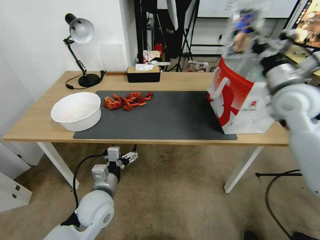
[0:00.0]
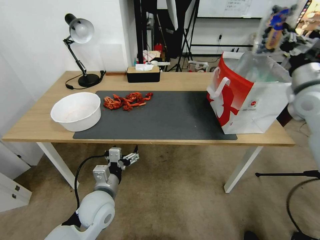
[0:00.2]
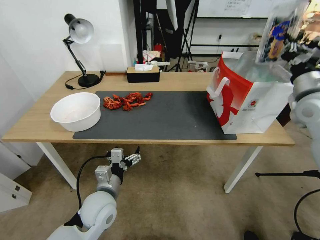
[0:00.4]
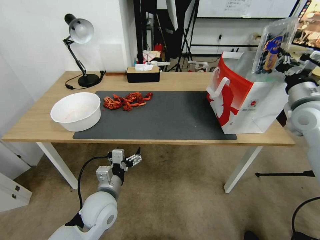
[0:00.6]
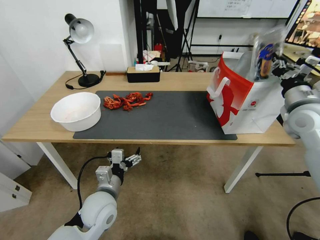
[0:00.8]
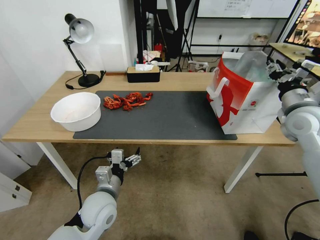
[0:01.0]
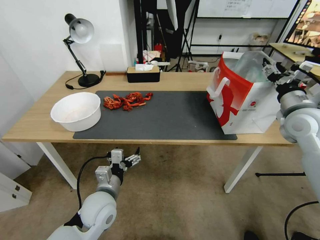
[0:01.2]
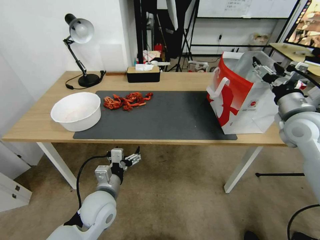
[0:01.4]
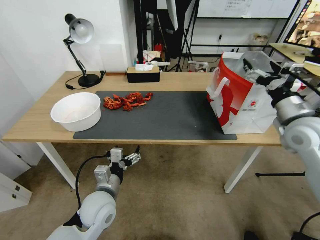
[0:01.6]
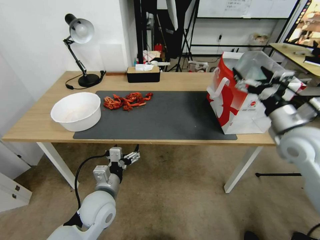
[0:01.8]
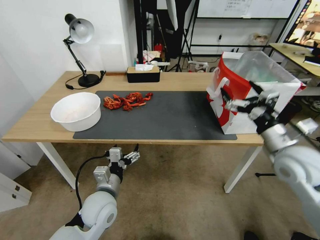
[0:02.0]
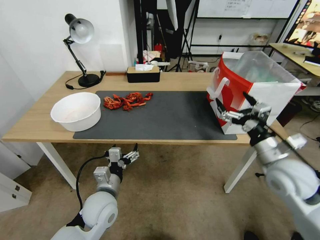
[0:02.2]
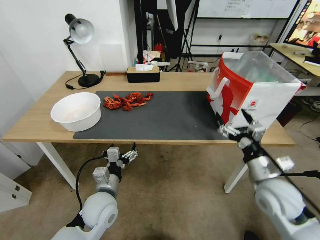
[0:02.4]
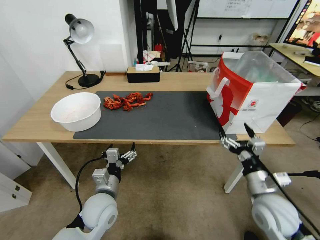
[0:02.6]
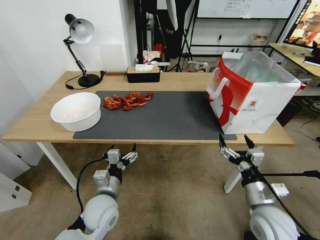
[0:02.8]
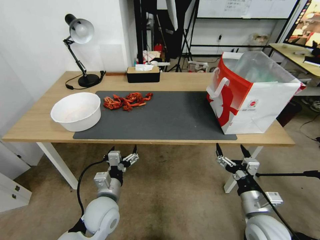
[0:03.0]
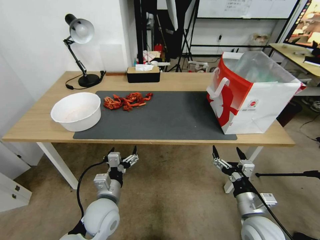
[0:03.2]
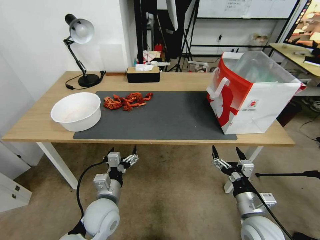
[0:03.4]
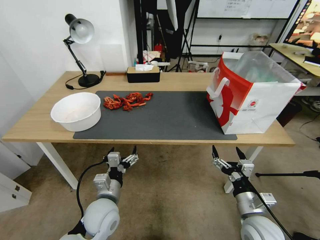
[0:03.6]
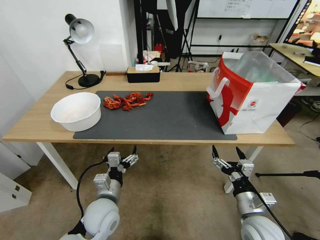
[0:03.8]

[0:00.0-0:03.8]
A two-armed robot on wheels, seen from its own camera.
Task of the whole recording: Close the takeout container lid, then place the container into the takeout bag.
0:00.0 to 0:01.2: The right gripper shifts some 10 cm downward and to the right, and opens its fingers.
0:01.2 to 0:02.6: The right gripper moves downward, backward and to the left, approximately 25 cm, and opens up.
0:02.6 to 0:03.8: The right gripper goes approximately 5 cm downward.

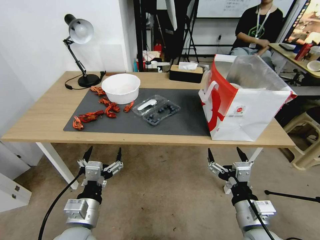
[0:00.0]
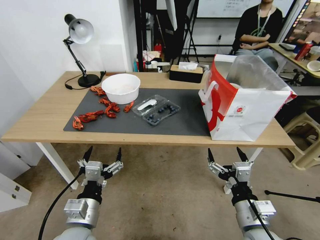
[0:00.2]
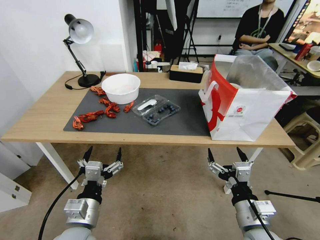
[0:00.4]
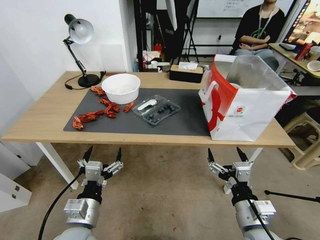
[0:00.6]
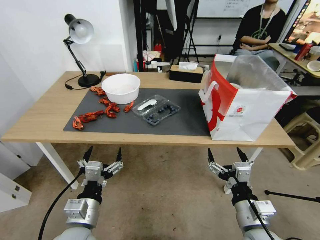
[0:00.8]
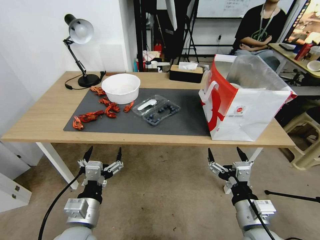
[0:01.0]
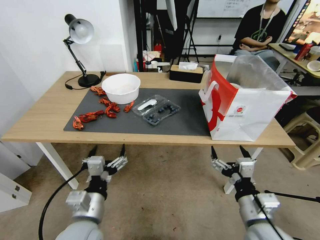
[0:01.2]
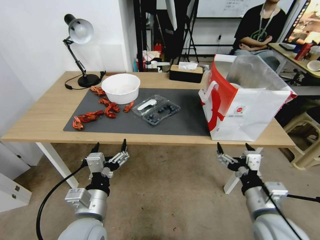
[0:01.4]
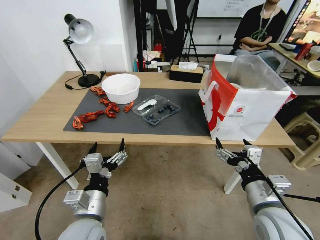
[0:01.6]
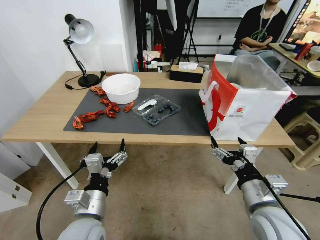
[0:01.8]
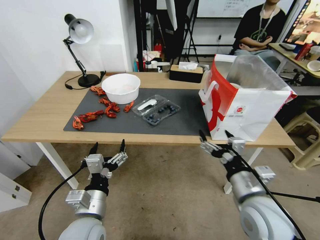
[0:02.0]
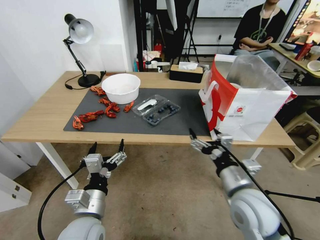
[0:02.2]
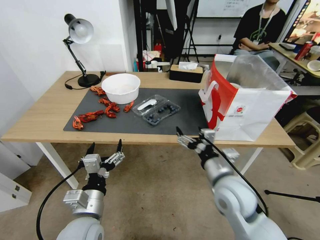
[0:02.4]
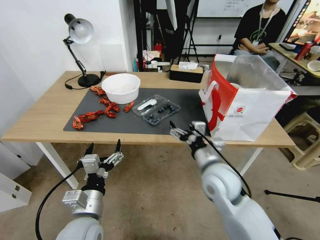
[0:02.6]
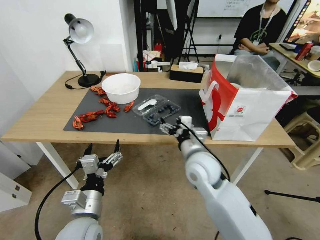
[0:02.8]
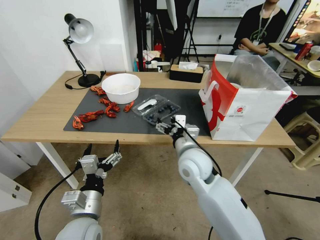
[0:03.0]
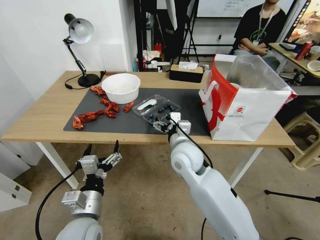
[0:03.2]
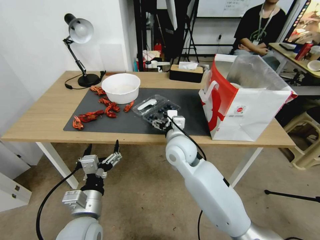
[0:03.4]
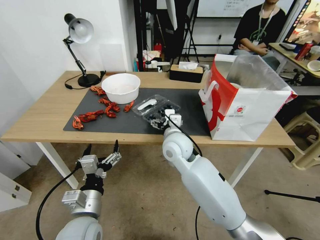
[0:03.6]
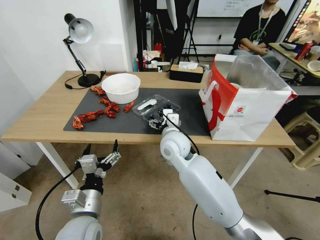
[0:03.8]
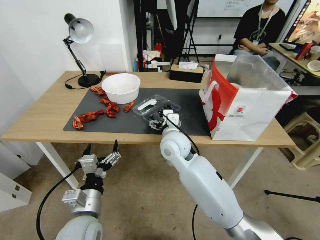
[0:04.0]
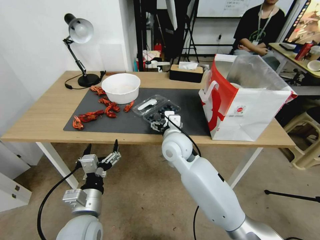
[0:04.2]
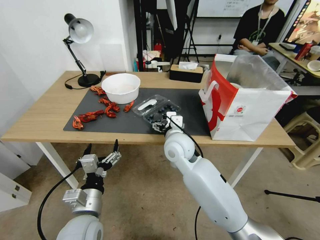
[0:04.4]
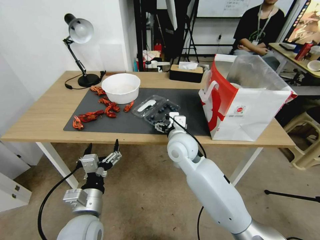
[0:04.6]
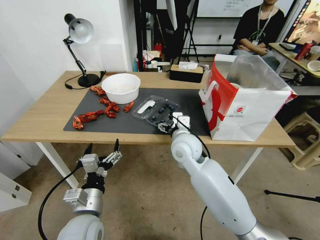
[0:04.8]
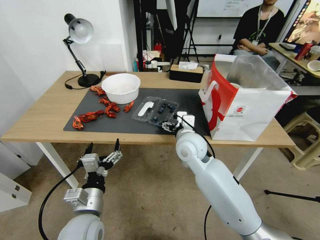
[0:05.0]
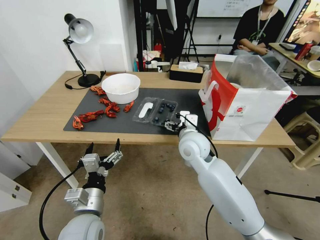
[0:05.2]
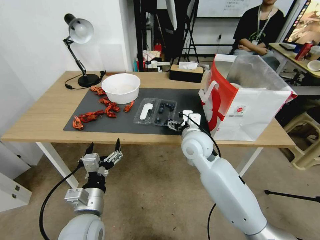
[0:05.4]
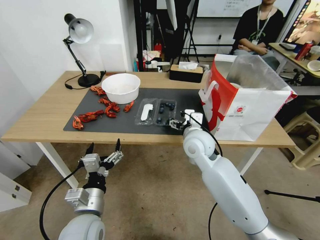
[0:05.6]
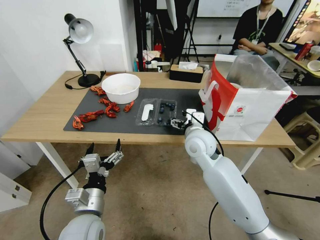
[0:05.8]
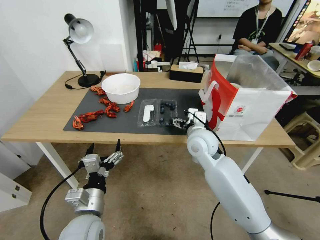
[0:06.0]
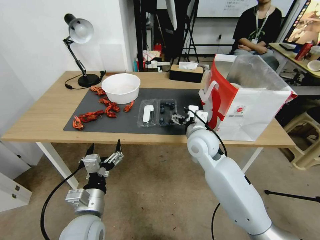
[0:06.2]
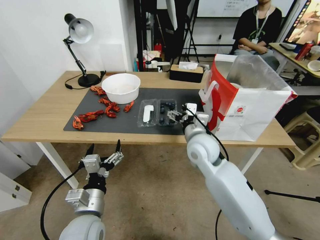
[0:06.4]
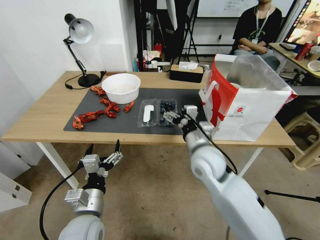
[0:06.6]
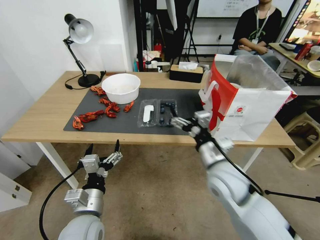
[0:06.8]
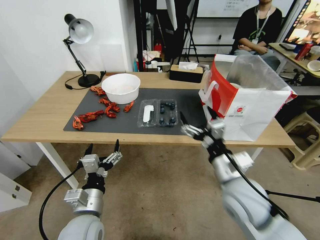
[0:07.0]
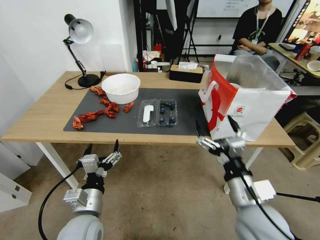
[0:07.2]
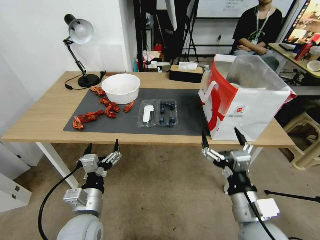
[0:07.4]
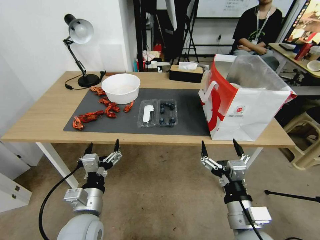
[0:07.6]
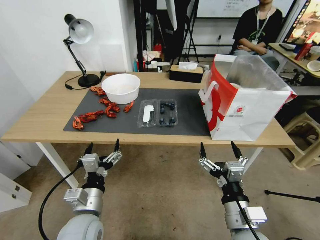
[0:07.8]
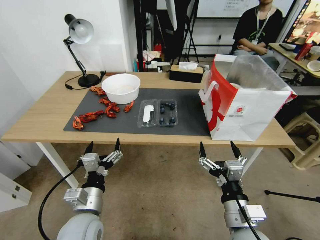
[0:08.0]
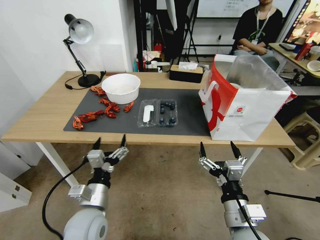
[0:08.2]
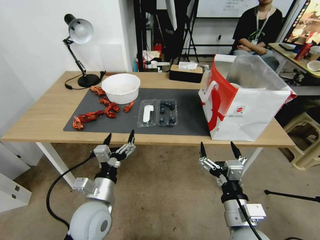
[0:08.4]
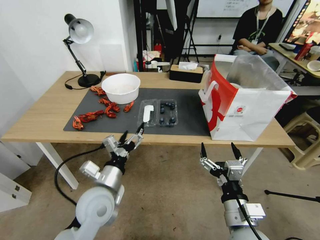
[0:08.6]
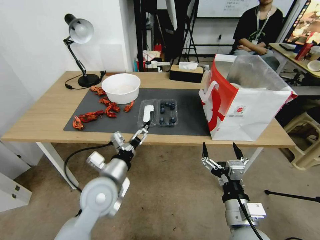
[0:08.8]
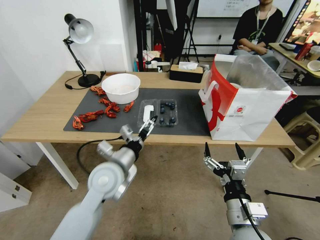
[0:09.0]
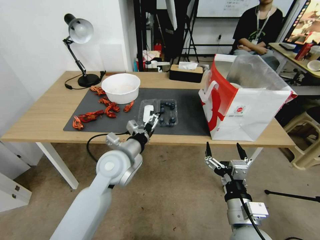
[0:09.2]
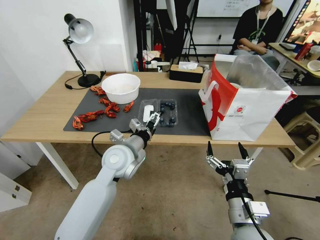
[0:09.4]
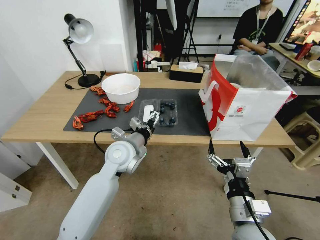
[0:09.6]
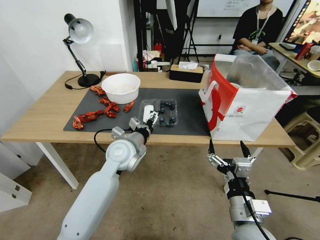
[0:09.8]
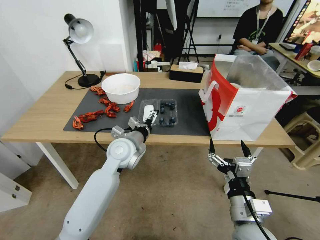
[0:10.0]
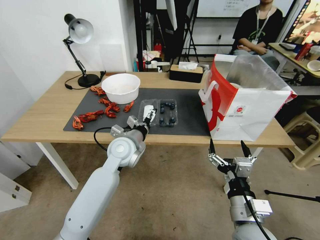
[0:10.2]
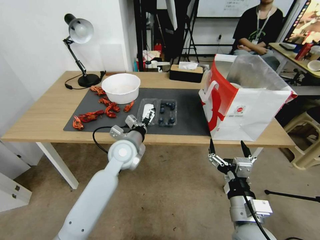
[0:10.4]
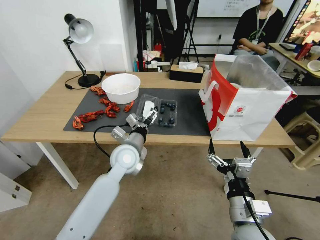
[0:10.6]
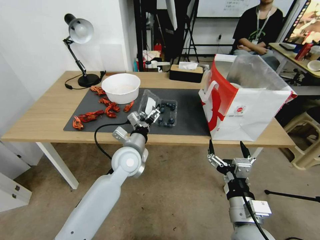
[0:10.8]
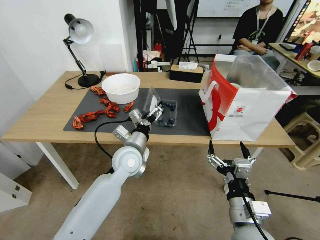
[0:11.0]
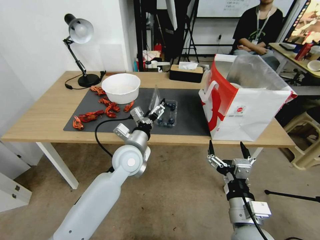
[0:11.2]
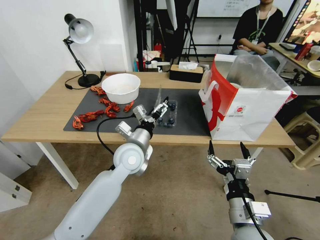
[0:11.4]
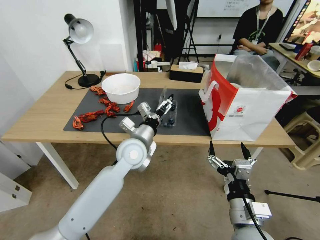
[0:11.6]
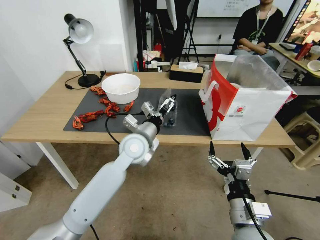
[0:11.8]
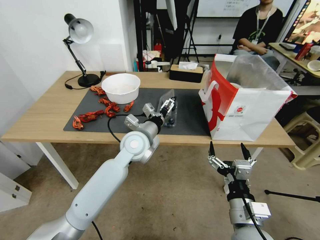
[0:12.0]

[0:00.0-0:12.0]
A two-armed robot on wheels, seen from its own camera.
Task of the whole recording: Close the takeout container lid, then place the container into the takeout bag.
0:01.6 to 0:03.0: The right gripper goes about 25 cm to the left and forward.
0:03.0 to 0:04.4: The right gripper changes place by approximately 5 cm.
0:04.4 to 0:06.0: The right gripper heads to the right, covering about 5 cm.
0:06.0 to 0:07.6: The right gripper is displaced backward by some 25 cm.
0:07.6 to 0:09.0: The left gripper moves forward, upward and to the right, some 15 cm.
0:09.0 to 0:10.4: The left gripper moves forward, approximately 10 cm.
0:10.4 to 0:12.0: The left gripper moves some 5 cm.

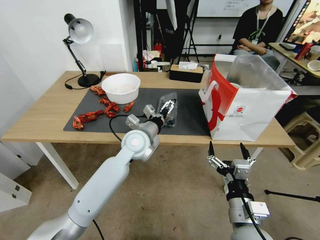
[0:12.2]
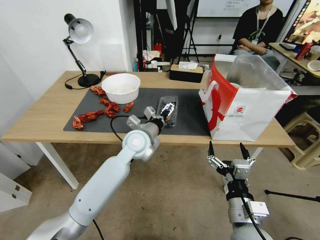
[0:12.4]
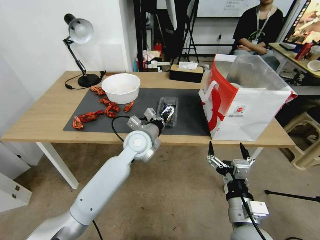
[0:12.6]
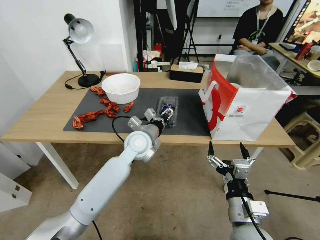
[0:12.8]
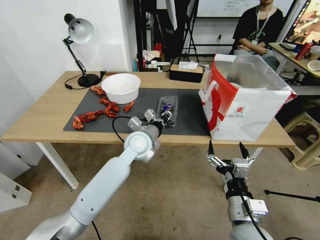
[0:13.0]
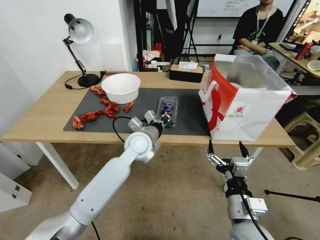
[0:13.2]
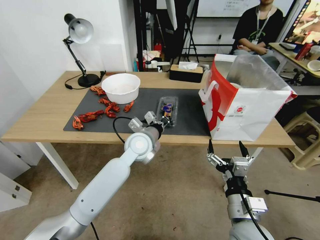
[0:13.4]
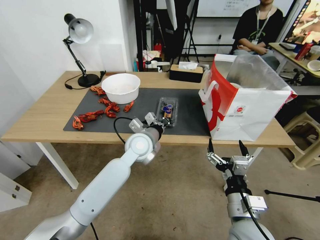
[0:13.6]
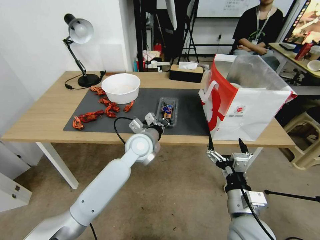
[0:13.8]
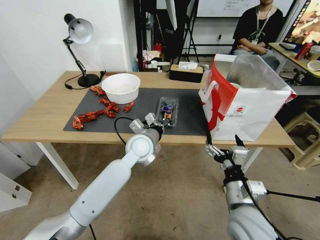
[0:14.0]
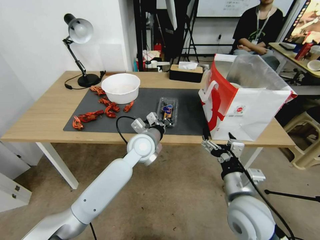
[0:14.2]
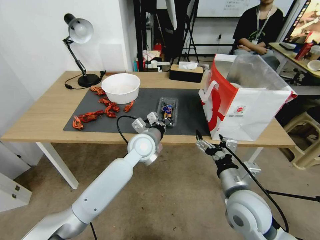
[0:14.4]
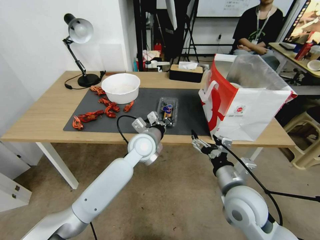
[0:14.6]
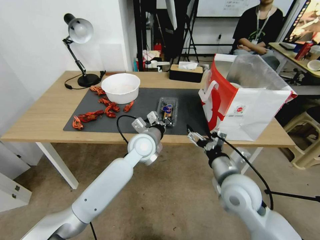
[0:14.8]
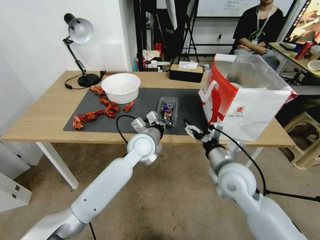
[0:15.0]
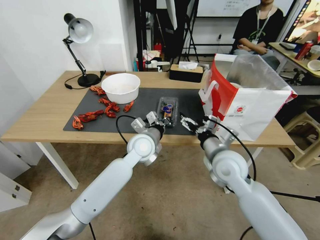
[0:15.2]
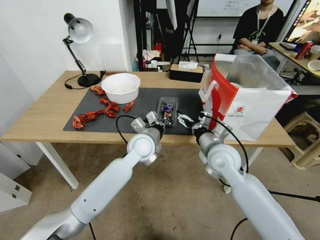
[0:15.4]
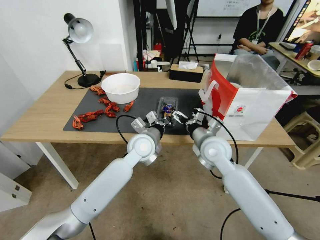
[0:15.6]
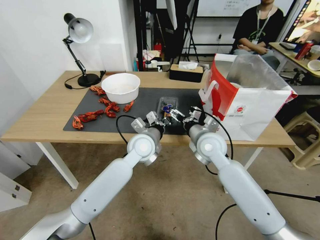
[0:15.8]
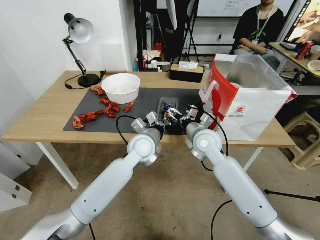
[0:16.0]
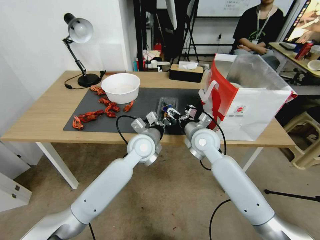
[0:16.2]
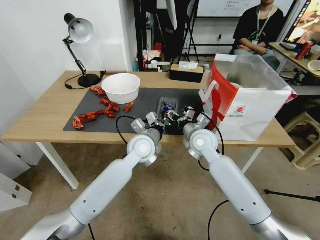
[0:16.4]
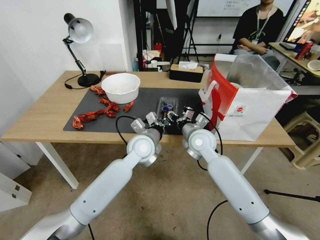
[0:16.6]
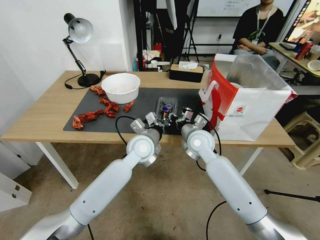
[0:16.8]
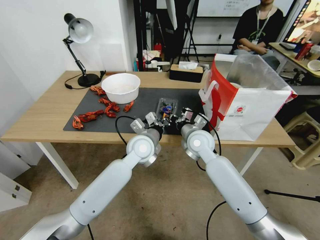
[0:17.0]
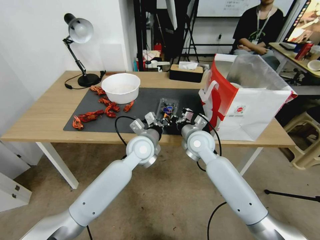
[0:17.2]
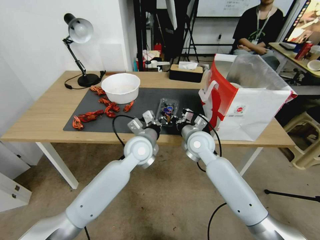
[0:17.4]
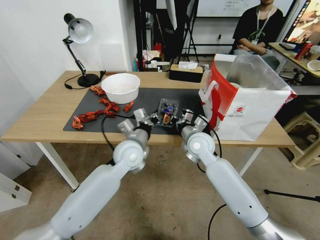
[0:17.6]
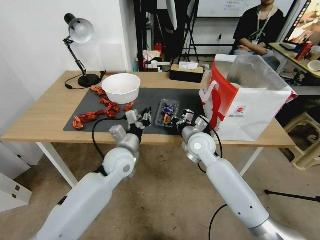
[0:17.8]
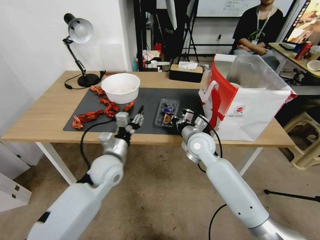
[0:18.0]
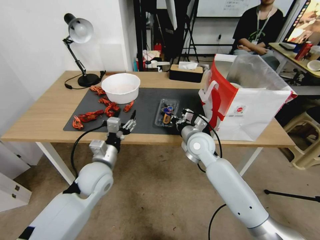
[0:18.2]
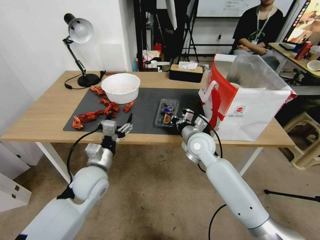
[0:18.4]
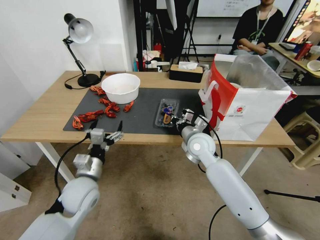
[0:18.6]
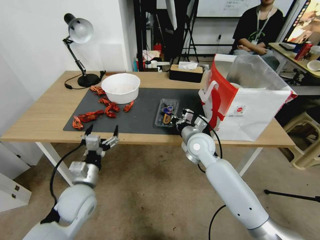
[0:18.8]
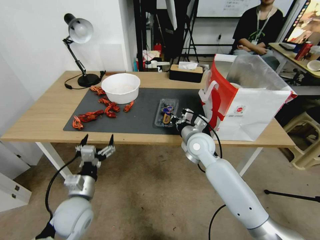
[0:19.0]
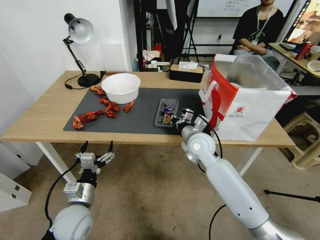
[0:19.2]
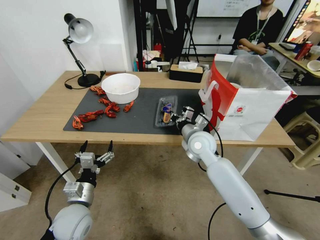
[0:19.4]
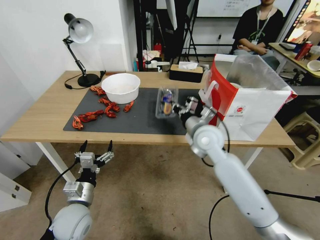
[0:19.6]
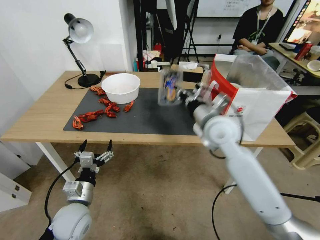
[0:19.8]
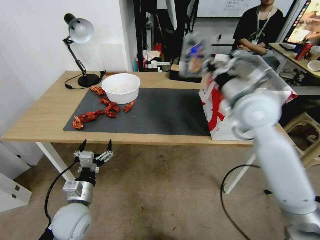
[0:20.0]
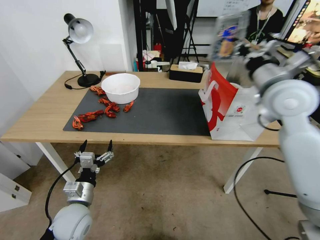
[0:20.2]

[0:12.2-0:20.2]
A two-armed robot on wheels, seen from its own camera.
Task of the whole recording: Close the takeout container lid, then place the container into the takeout bag.
0:12.2 to 0:13.8: The left gripper closes up.
0:13.8 to 0:15.4: The right gripper shifts approximately 20 cm forward.
0:15.4 to 0:17.0: The right gripper goes about 5 cm forward, and closes.
0:17.0 to 0:18.6: The left gripper heads to the left and backward, covering approximately 20 cm, and opens its fingers.
0:18.6 to 0:20.2: The right gripper moves upward and to the right, approximately 25 cm; the left gripper travels backward and downward by roughly 10 cm.
